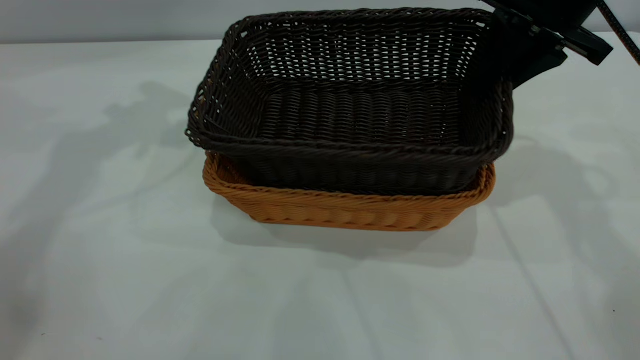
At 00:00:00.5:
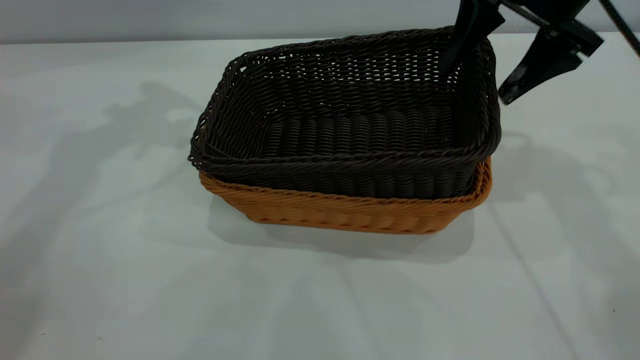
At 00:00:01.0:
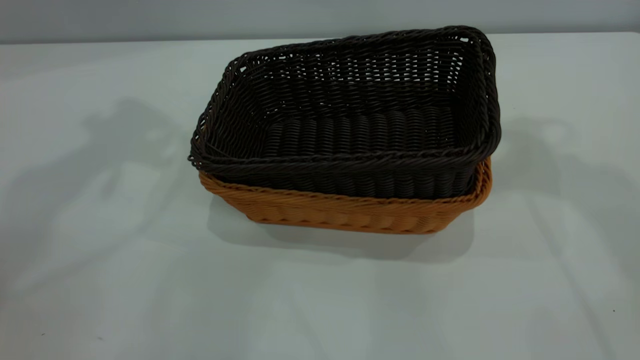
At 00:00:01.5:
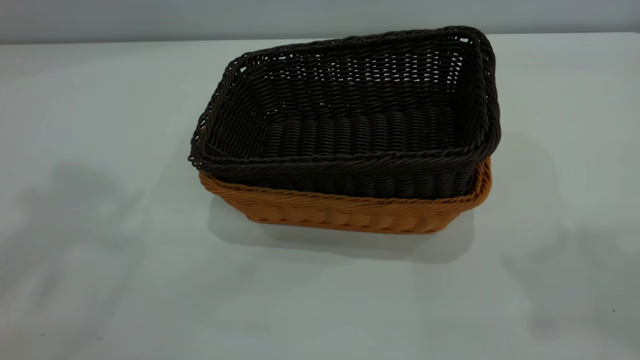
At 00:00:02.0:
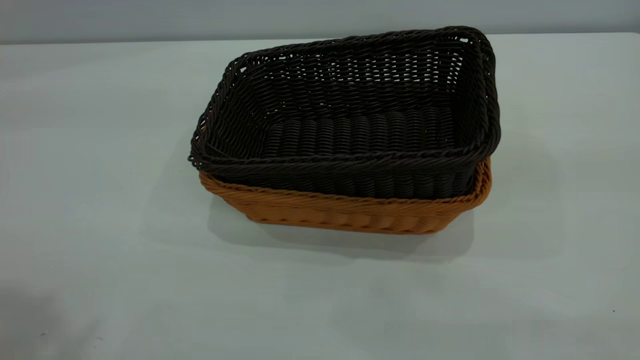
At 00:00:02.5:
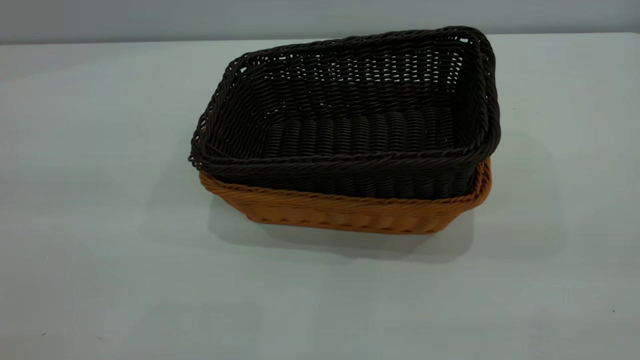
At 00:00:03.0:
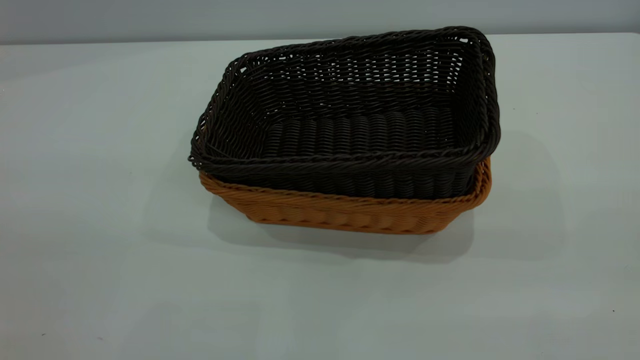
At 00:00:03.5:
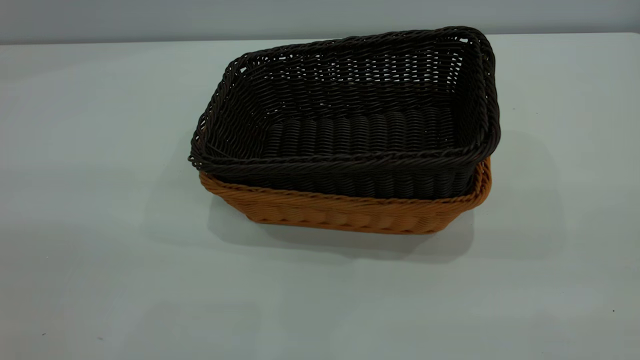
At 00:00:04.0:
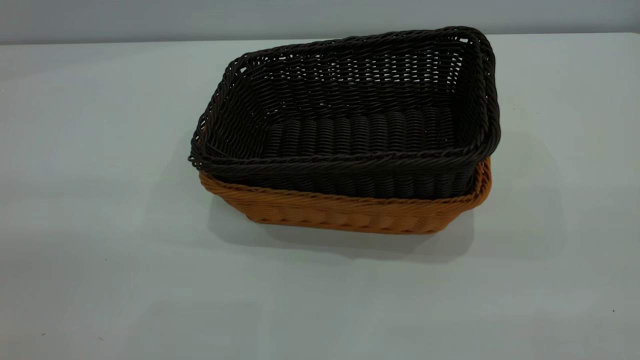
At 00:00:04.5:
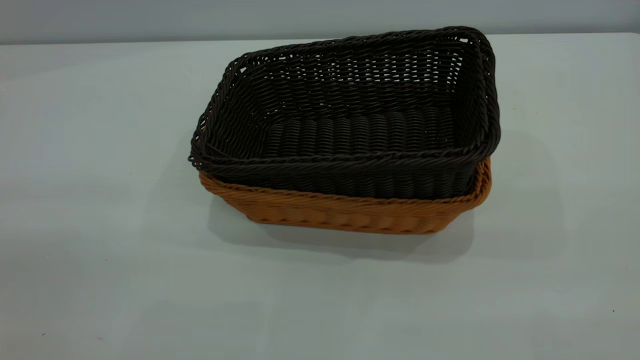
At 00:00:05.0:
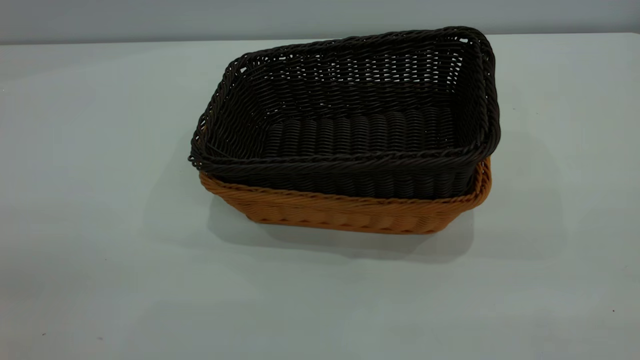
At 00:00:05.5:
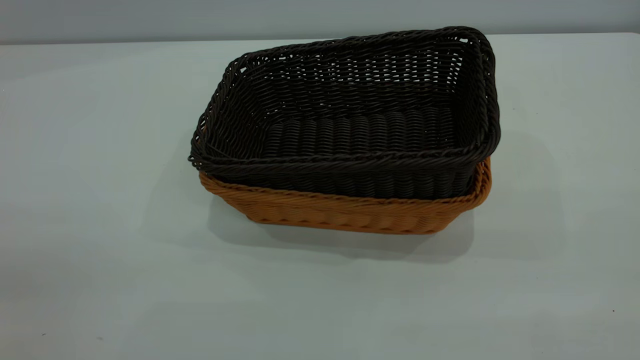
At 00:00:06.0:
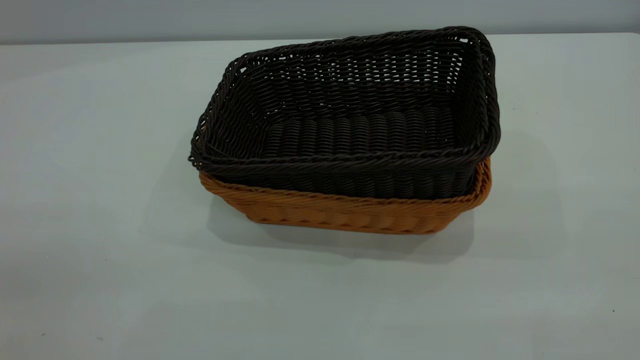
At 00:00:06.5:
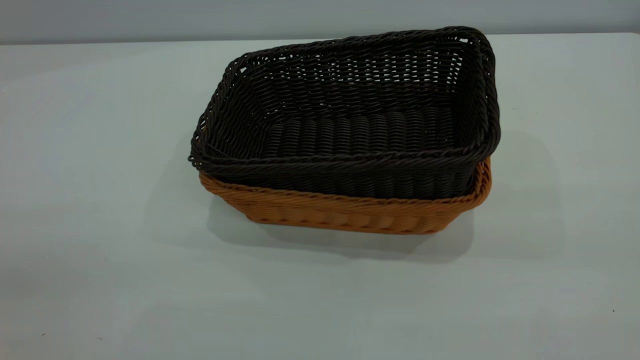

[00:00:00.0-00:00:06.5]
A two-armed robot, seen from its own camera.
Task of the whole recording: the left gripper grasp the brown basket and place it in the center of the table, the right gripper grasp the black basket and place it inside the brown one.
00:00:00.0 to 00:00:02.0: Both grippers travel together backward and upward, roughly 40 cm. The right gripper opens.
